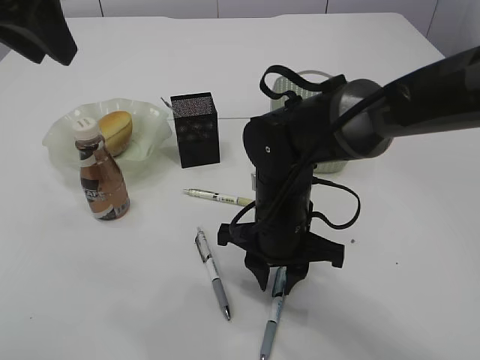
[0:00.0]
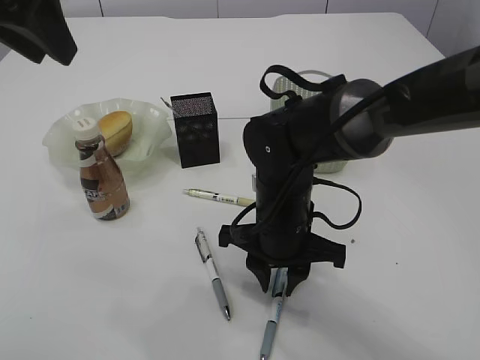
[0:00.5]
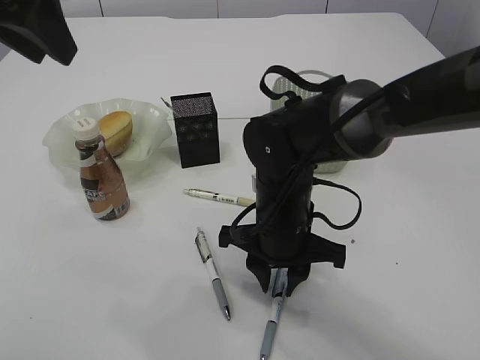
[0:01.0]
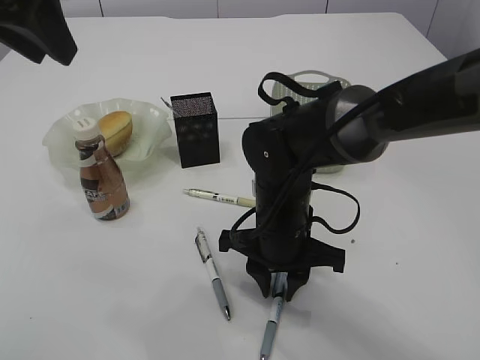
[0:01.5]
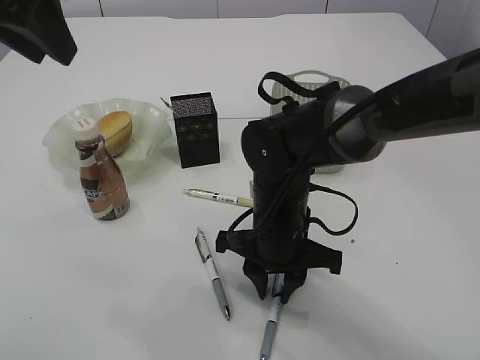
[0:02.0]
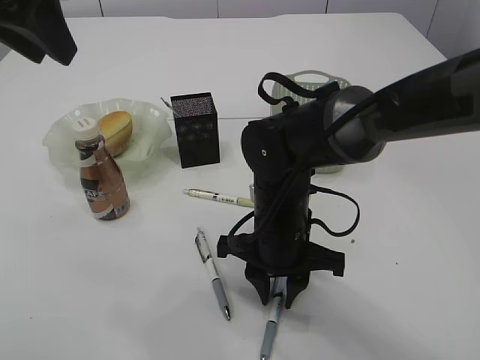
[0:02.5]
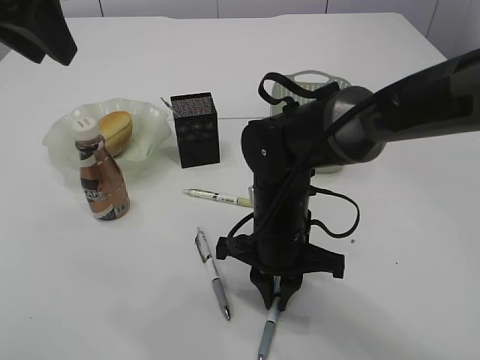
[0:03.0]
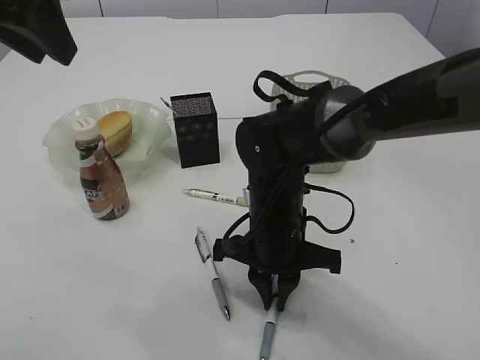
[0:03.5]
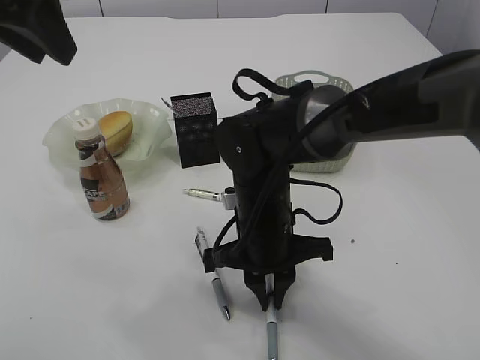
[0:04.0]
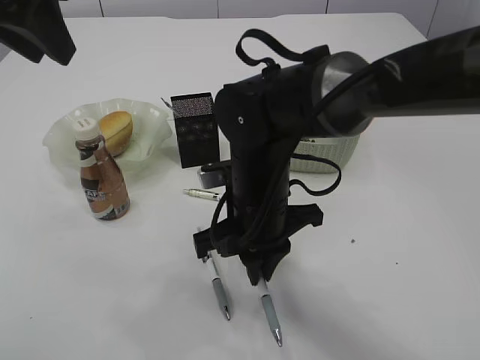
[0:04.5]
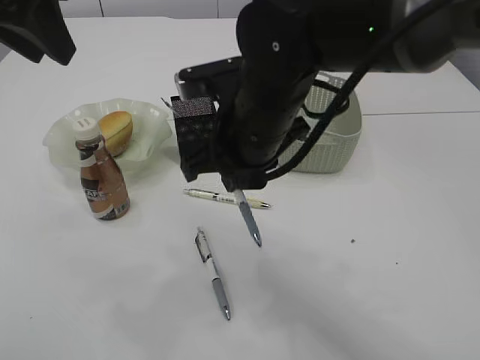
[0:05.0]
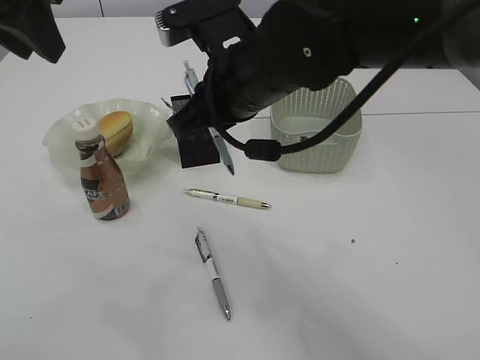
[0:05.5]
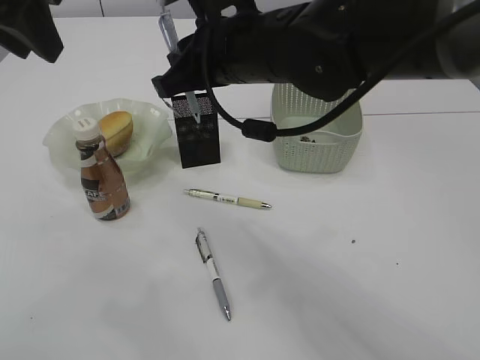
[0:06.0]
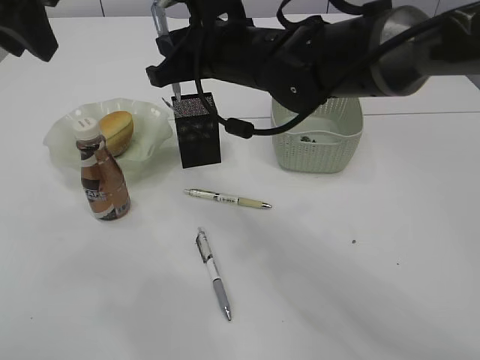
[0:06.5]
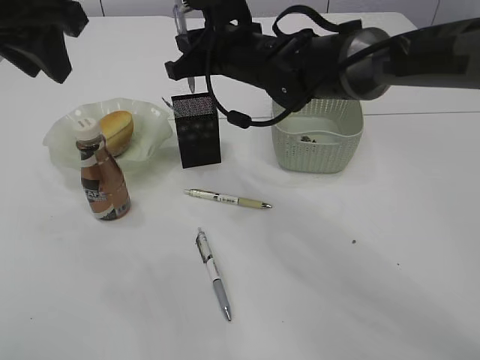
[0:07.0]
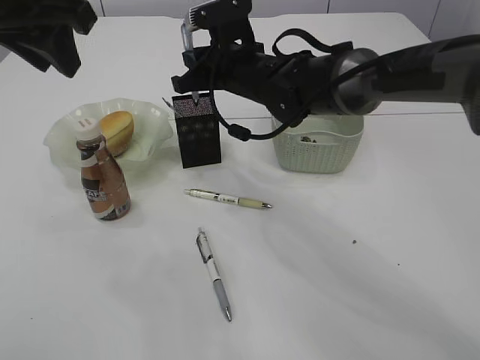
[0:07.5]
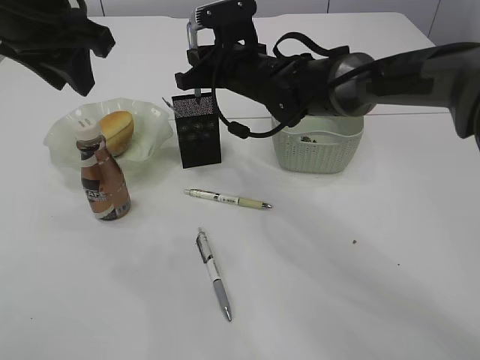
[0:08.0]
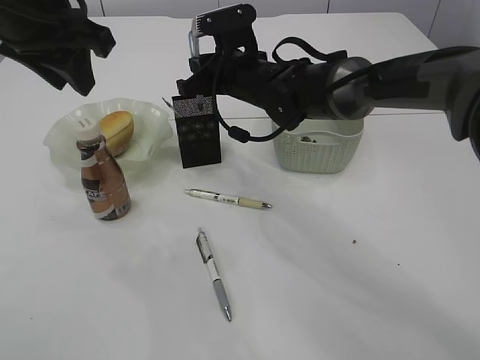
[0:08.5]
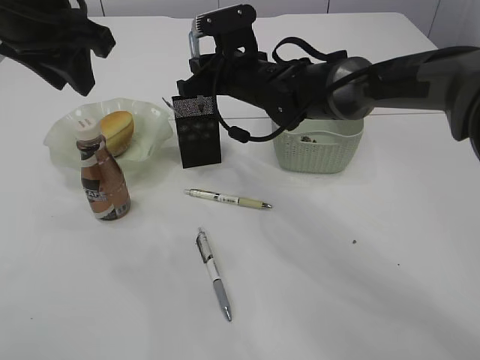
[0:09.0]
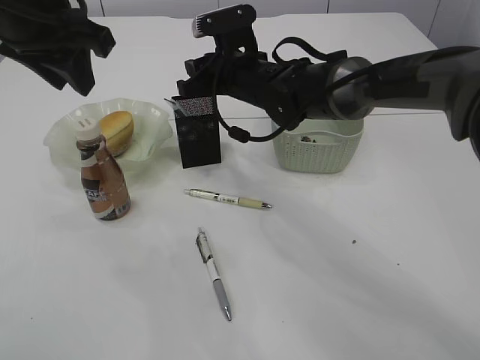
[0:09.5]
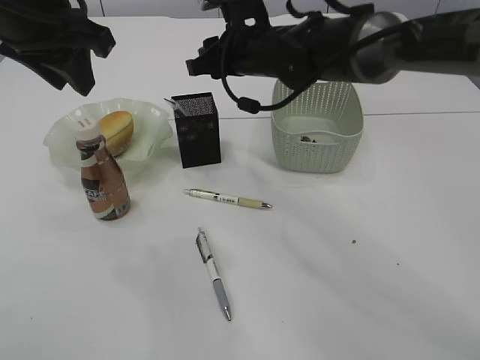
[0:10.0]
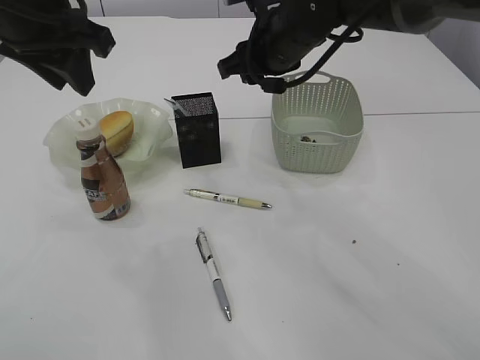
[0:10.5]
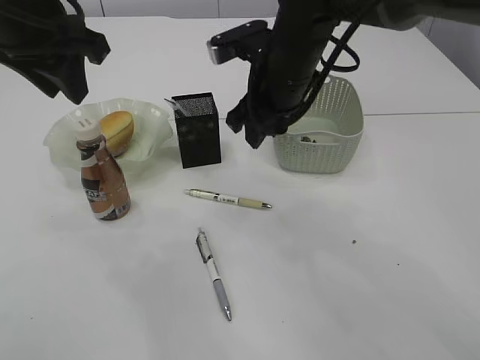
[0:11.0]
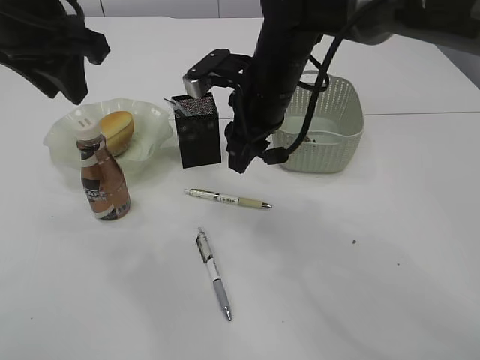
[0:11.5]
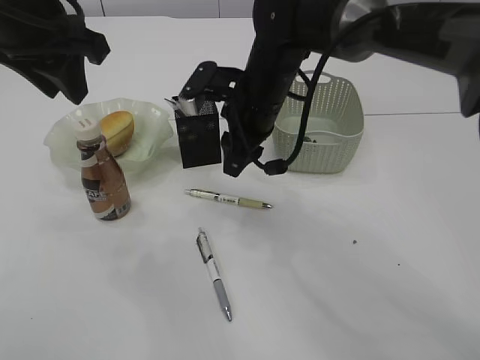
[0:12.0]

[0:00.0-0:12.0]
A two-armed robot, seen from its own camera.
Step, 0:00.0 to 0:04.5: Pick up the pen with right arm.
Step, 0:05.0 to 0:09.5: Place the pen into the pen holder.
0:00.0 to 0:02.0: Neither gripper changes place.
0:02.0 to 0:04.0: The grippers make only small movements.
0:04.0 to 0:06.0: The right gripper goes roughly 15 cm upward.
0:06.0 to 0:08.0: The right gripper is displaced forward and downward by roughly 15 cm. The left gripper moves some 5 cm.
0:08.0 to 0:10.0: The right gripper opens up.

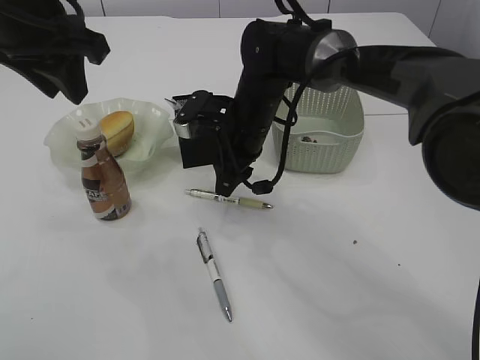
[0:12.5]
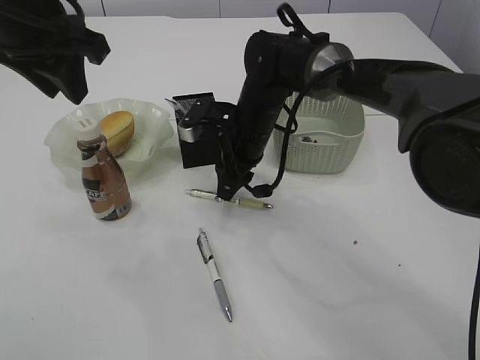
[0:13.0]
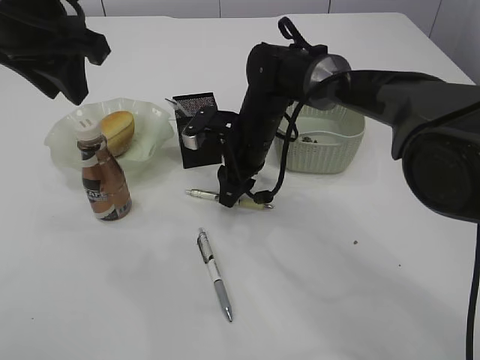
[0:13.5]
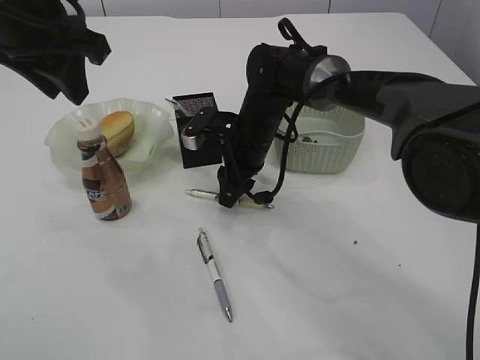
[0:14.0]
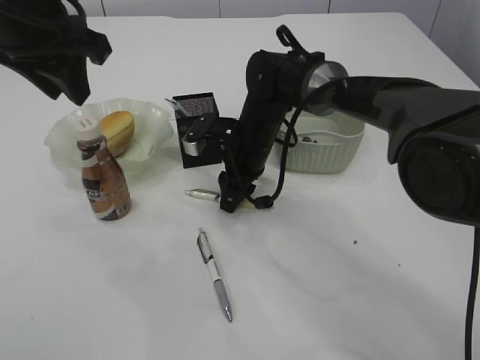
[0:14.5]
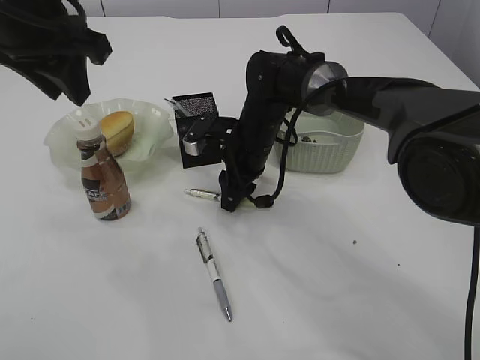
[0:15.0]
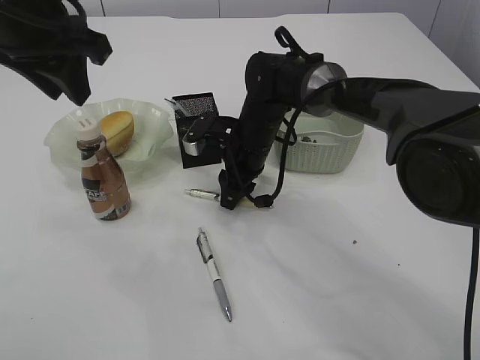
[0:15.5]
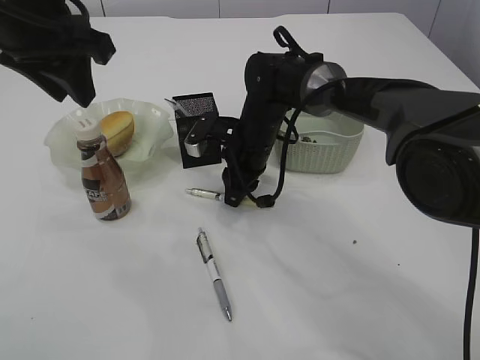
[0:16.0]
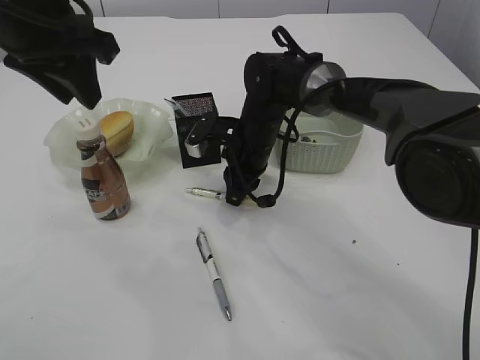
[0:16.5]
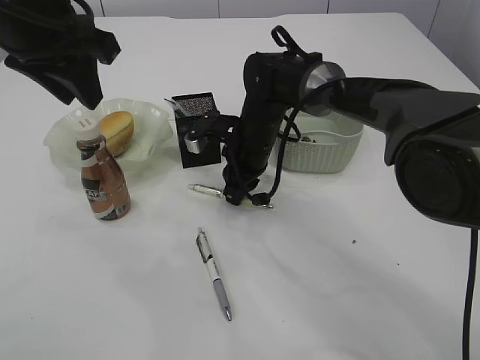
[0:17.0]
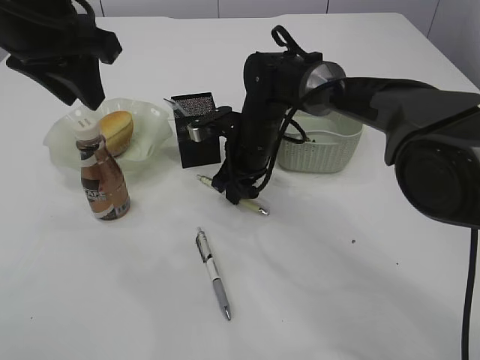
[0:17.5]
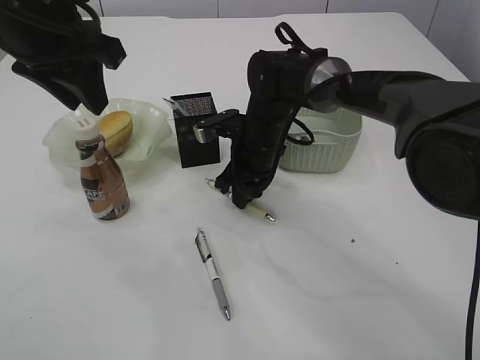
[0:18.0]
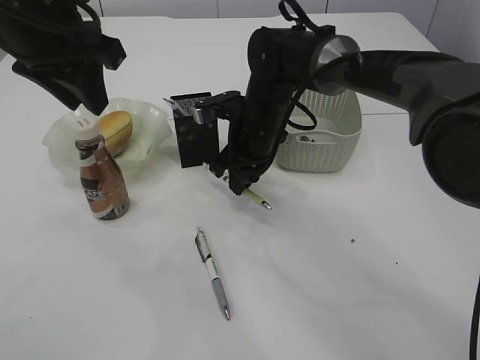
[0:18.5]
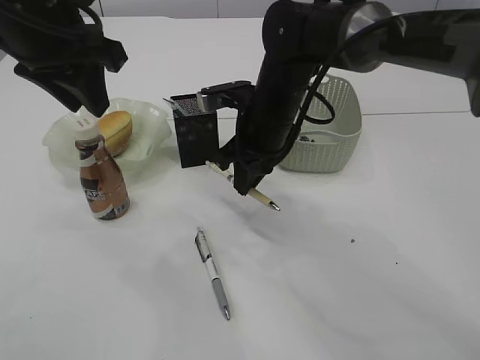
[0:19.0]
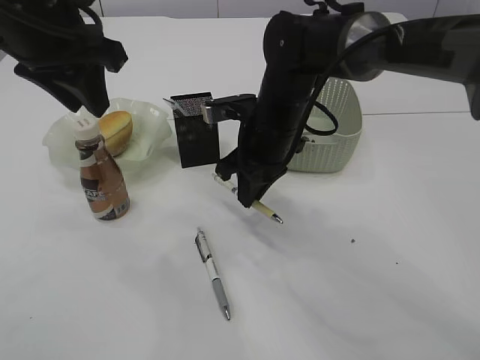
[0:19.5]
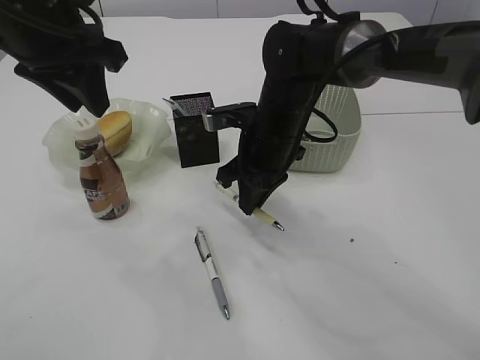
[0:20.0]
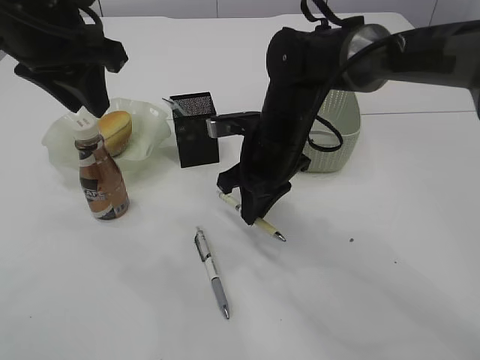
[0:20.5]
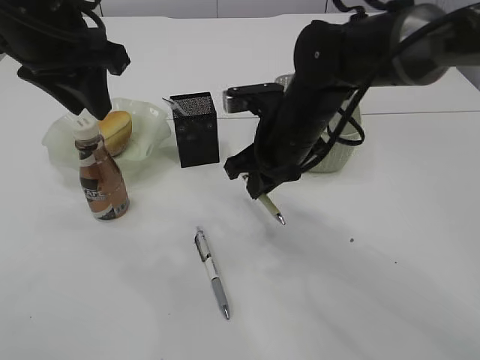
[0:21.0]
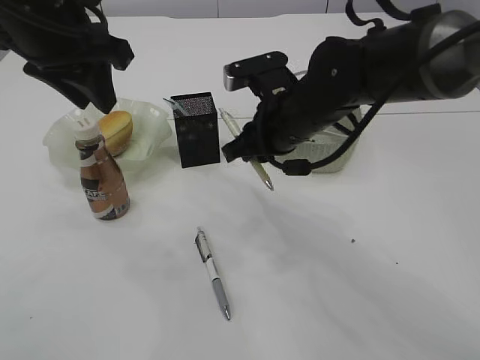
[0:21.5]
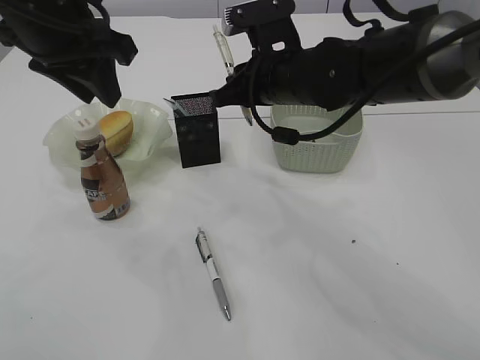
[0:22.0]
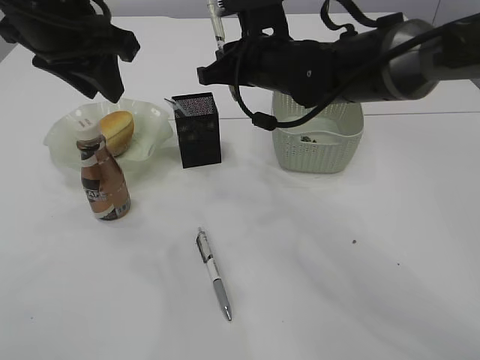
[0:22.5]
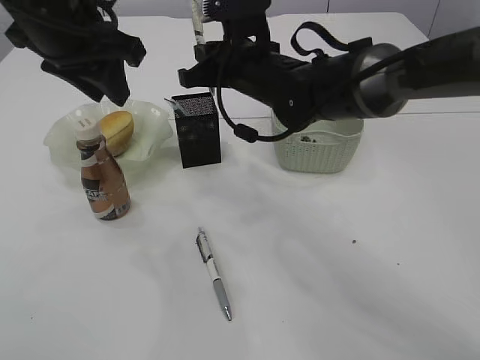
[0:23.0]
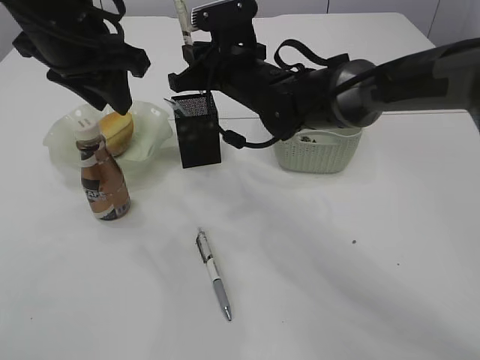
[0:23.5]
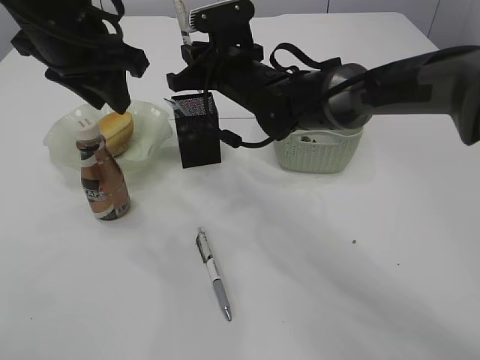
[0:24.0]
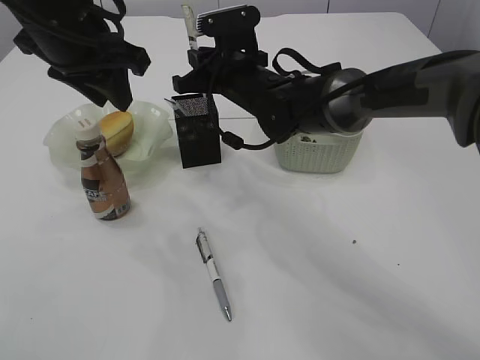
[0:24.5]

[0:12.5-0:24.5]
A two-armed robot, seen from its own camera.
Step, 0:12.5 to 0:20.5: Pick up the pen with right arm.
0:12.5 to 0:14.5: The grippers make only small movements.
0:14.5 to 0:16.5: Both grippers stay put.
0:18.5 to 0:20.5: The right gripper moves backward, approximately 5 cm.
0:20.5 to 0:22.5: The right gripper is displaced upward by some 5 cm.
0:22.5 to 0:24.5: The right gripper changes place by roughly 5 cm.

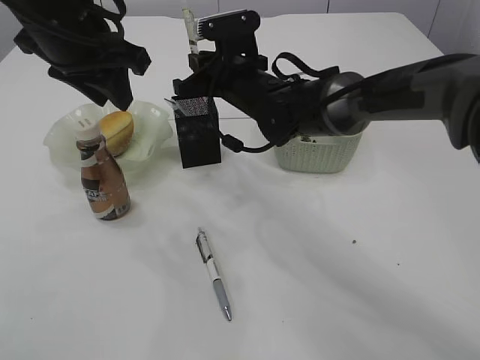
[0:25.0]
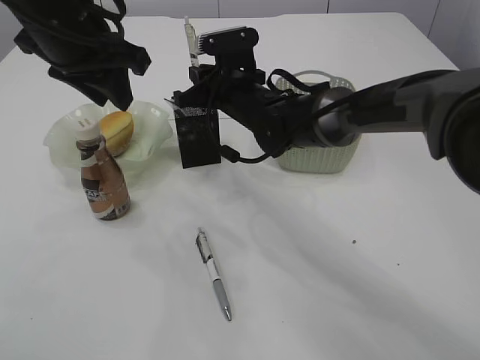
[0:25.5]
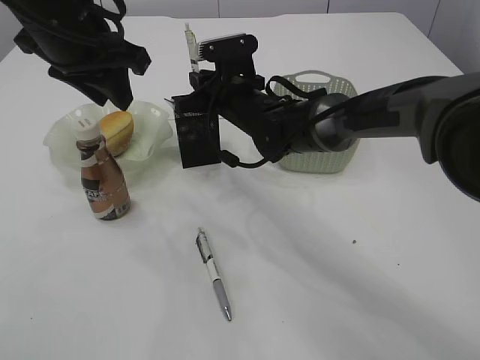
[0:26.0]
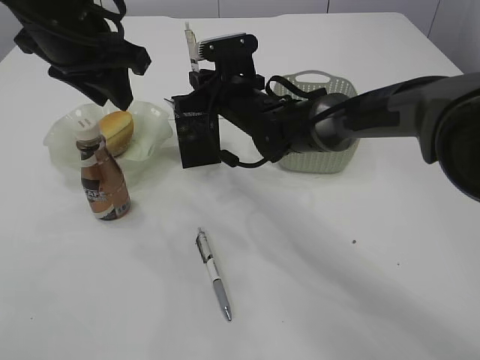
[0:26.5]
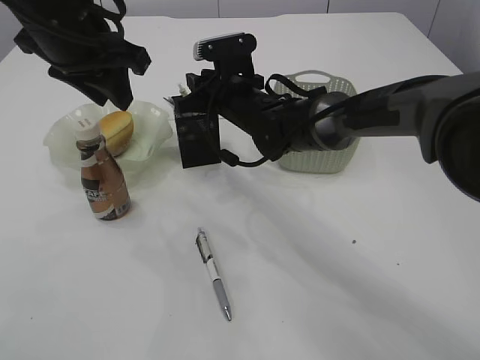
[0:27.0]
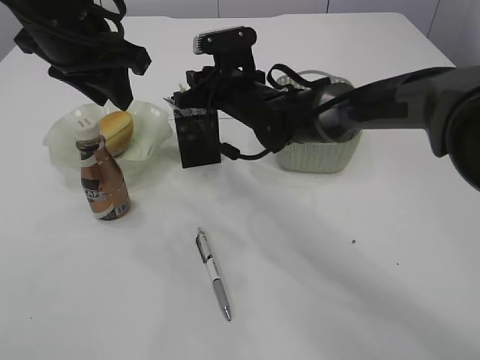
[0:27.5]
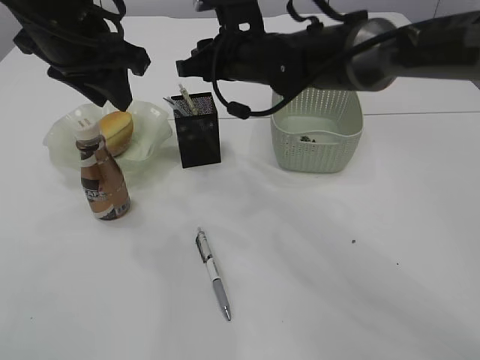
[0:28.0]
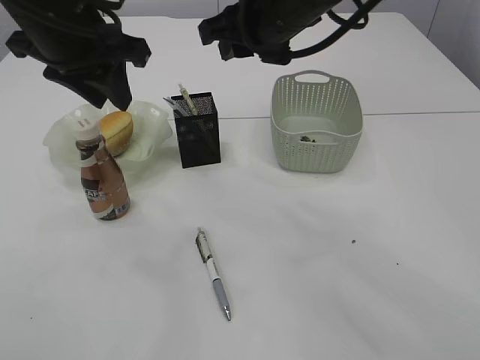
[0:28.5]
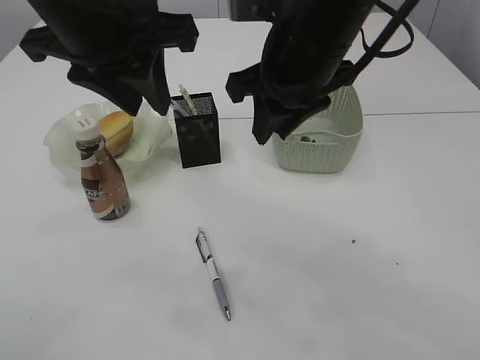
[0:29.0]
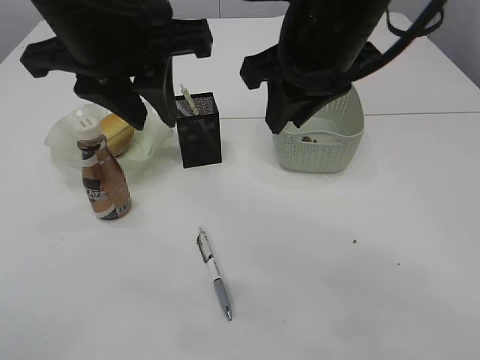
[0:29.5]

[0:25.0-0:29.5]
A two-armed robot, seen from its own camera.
Step, 0:25.0 to 0:28.0: Place the pen into the pen holder.
0:25.0 to 0:27.0: The grippers stay close to where they were, moving slightly.
0:27.0 to 0:29.5: The left gripper travels backward and to the right by approximately 10 cm, while the right gripper moves upward, backward and to the right, approximately 25 cm.
